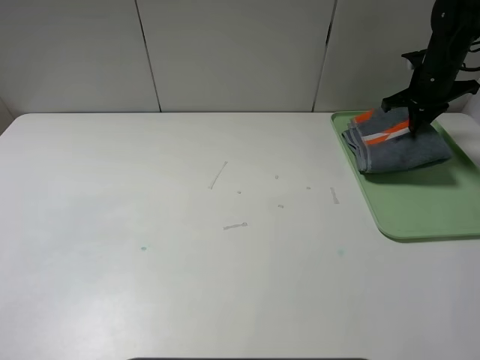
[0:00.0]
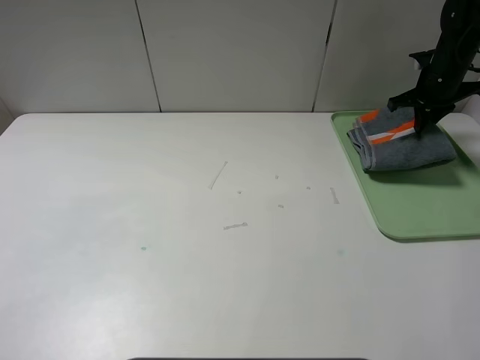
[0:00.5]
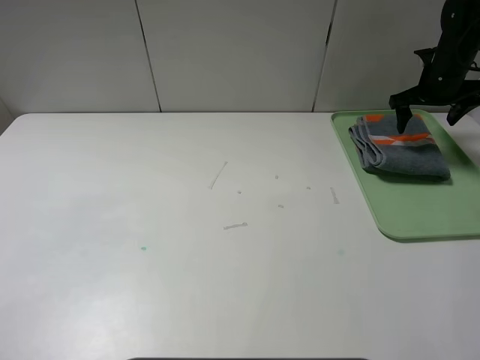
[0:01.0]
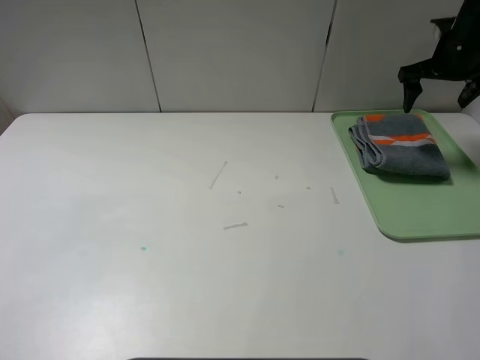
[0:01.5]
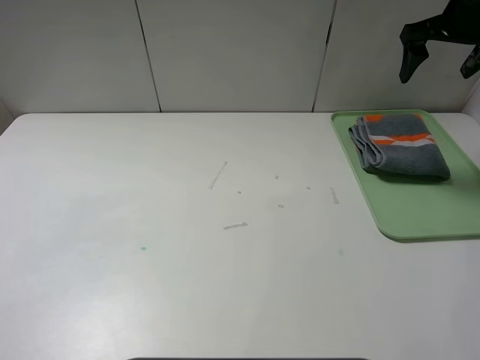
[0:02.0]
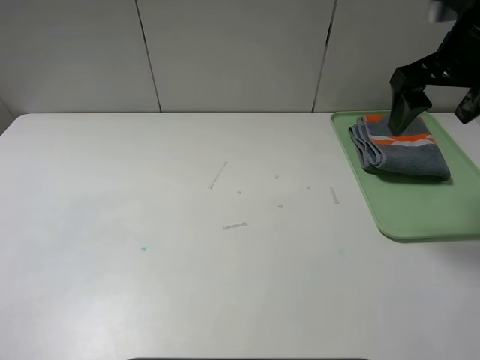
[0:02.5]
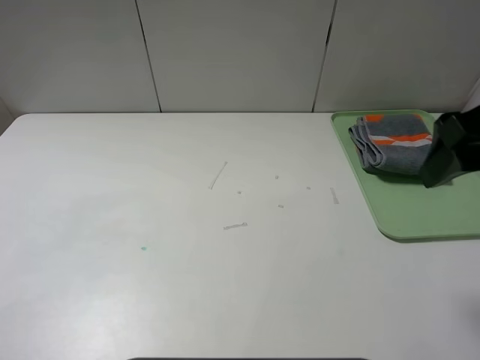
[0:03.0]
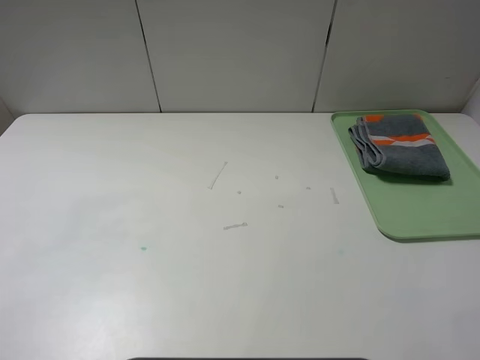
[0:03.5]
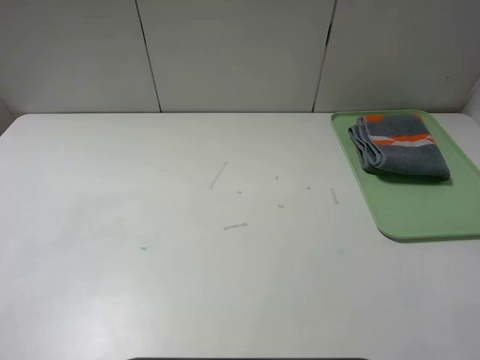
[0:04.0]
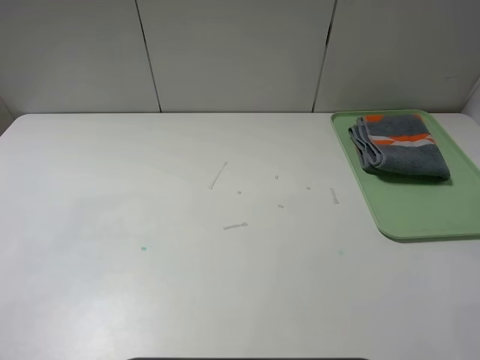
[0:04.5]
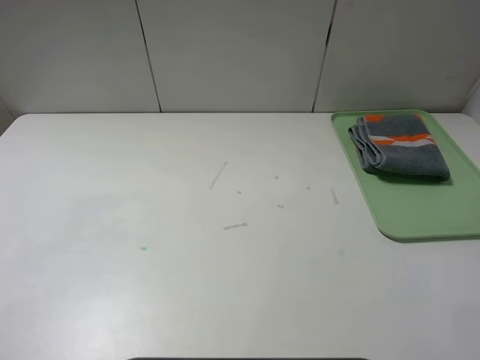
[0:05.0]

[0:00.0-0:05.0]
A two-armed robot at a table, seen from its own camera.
0:00.0 to 0:02.5: The right gripper travels backward, upward and to the left by about 25 cm, and opens.
0:02.5 to 0:05.0: The right gripper is displaced backward by approximately 30 cm.
